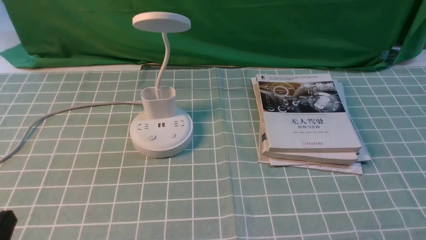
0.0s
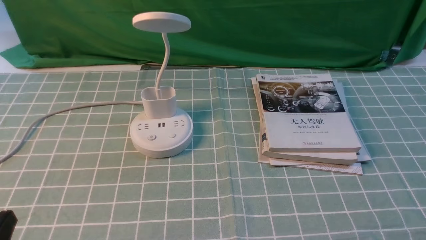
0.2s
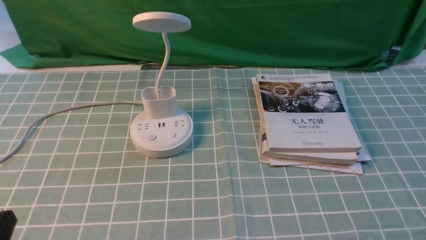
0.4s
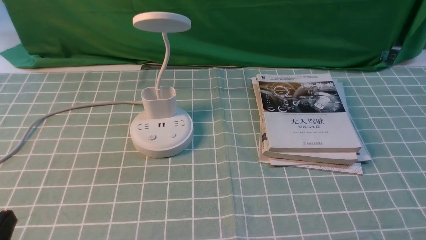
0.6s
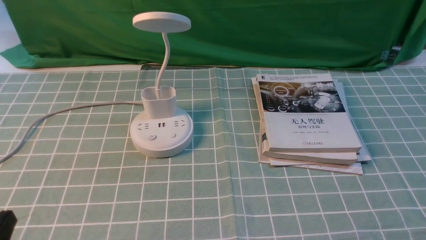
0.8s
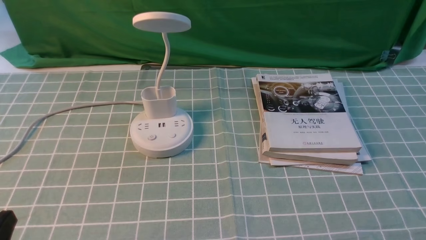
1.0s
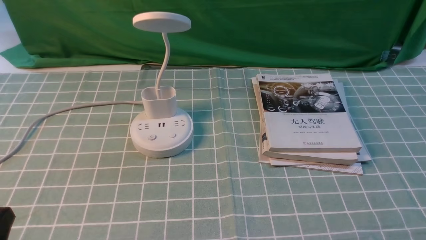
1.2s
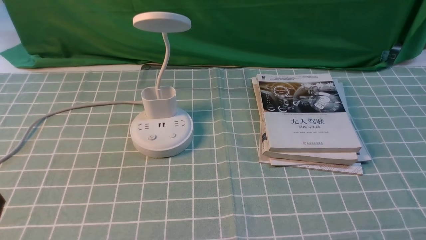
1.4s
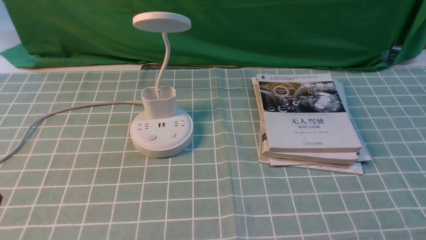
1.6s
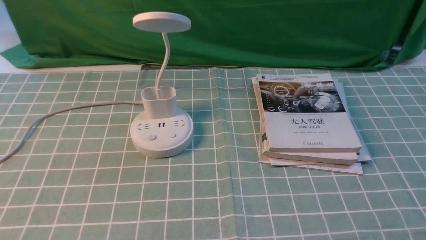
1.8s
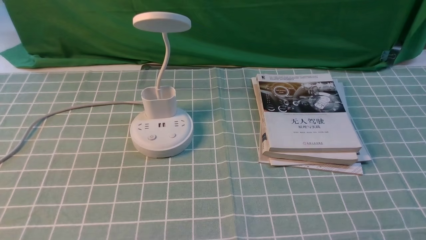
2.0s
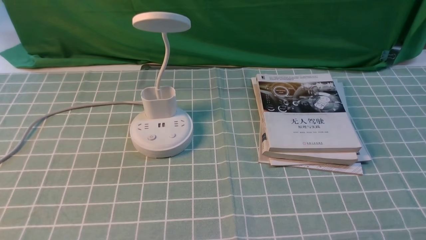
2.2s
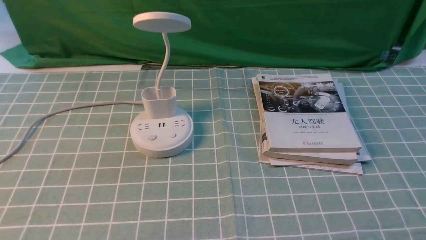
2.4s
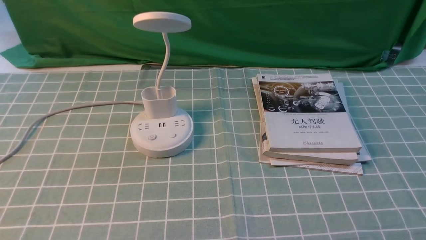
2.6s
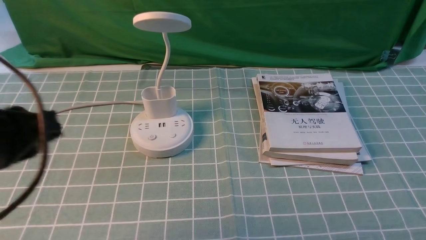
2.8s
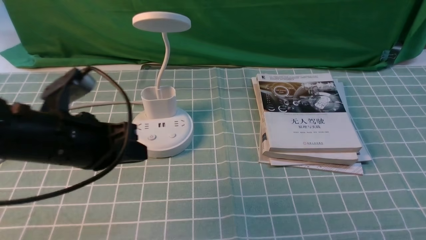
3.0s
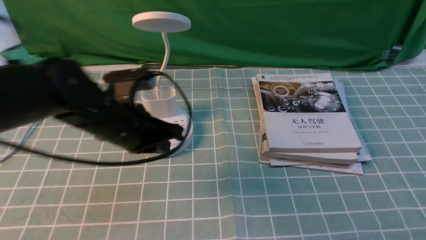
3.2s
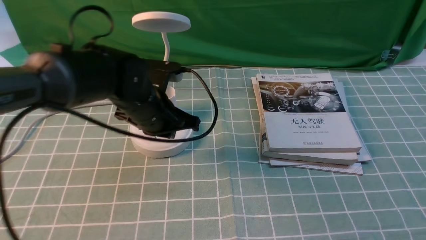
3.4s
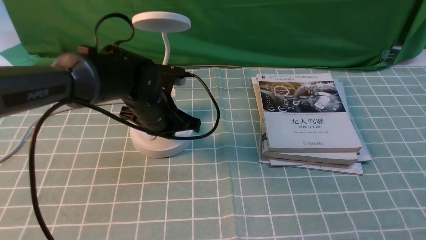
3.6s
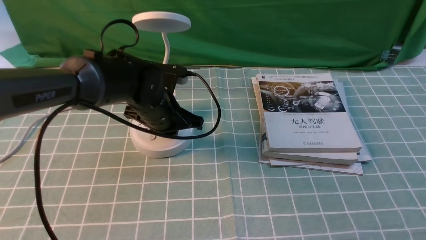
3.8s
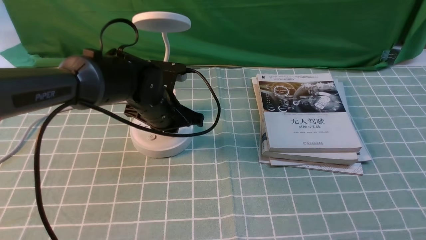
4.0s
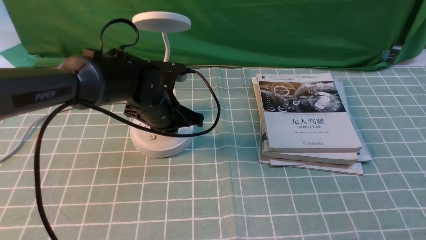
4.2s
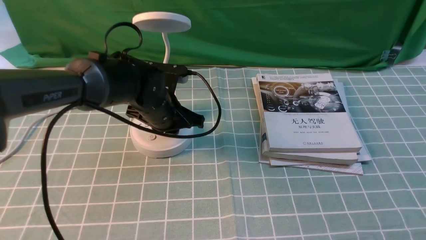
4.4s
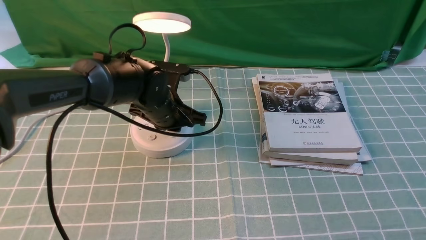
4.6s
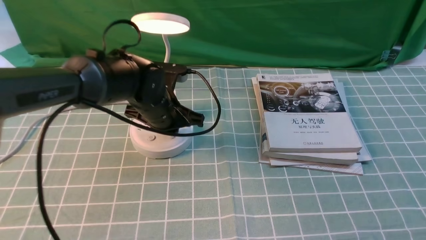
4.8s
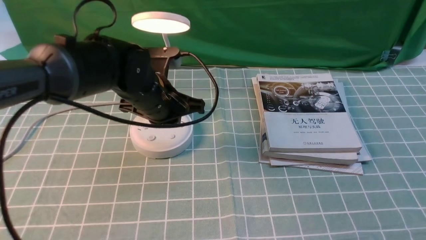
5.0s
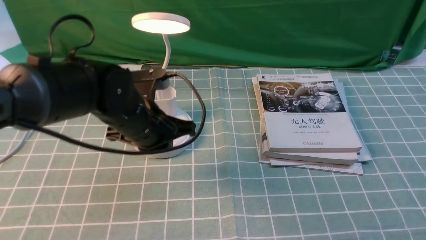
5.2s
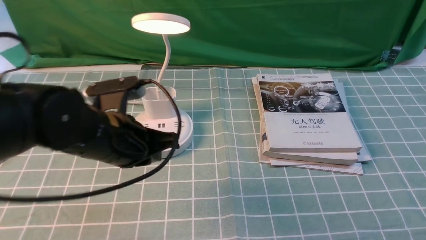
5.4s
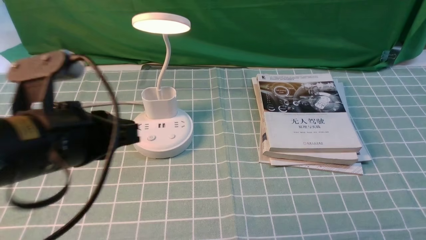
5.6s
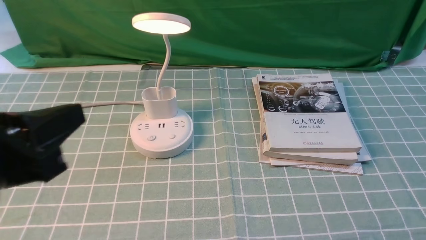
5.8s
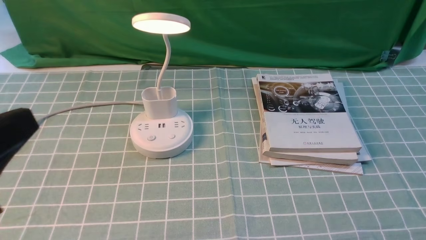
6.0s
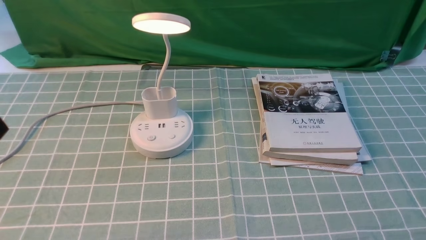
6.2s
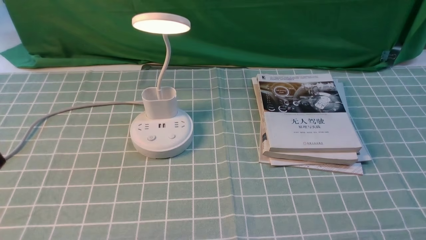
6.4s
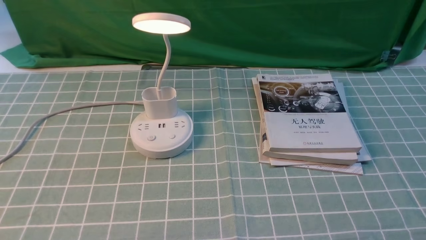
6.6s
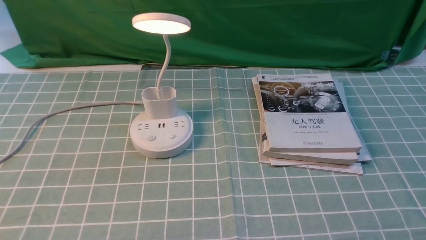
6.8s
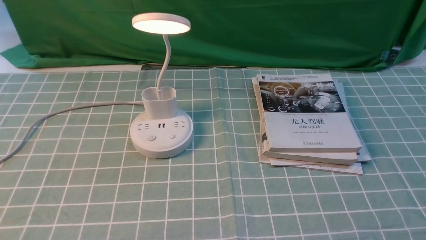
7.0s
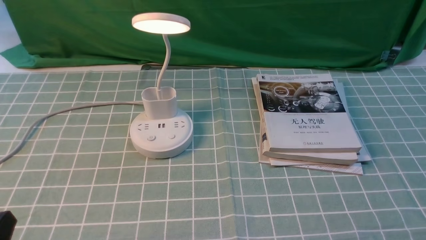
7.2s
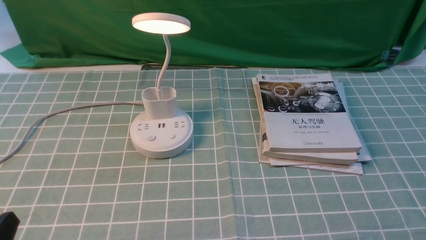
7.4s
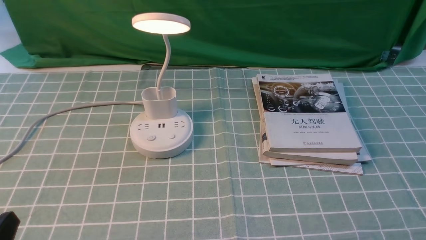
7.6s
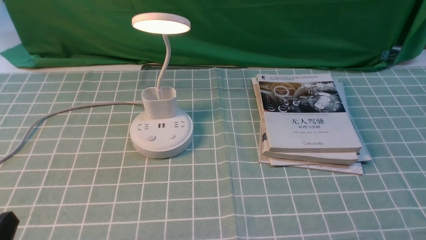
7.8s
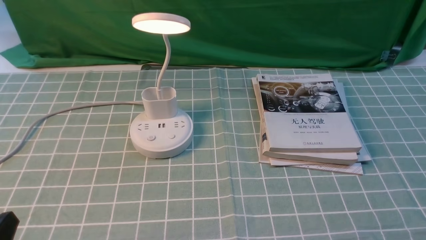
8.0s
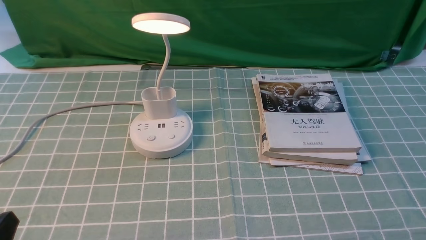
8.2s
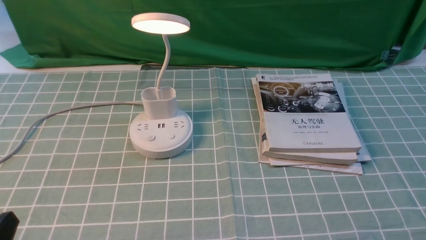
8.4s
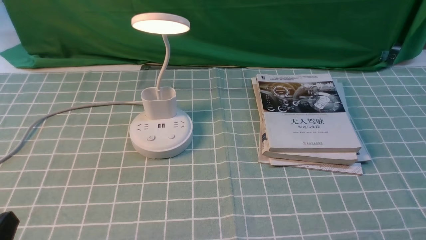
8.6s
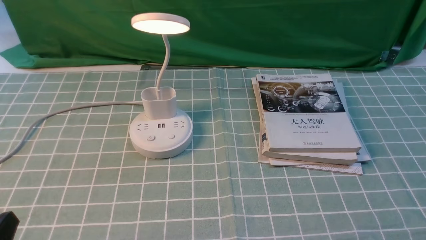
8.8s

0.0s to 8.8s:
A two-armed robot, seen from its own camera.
Step, 0.0s to 4.8s: use the left arm to press the button switch on the lamp holder.
1.4s to 3.0s: The left gripper moves forward and to the right, some 20 cm.
3.0s to 4.4s: The left gripper goes roughly 20 cm forward, to the right and downward.
4.4s to 5.8s: The left gripper goes some 35 cm backward, upward and to the left.
5.8s to 7.4s: The left gripper shifts about 15 cm downward, and opens its fingers.
